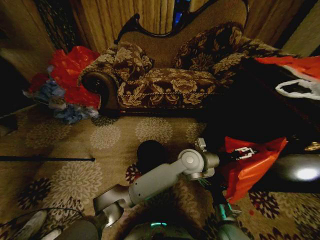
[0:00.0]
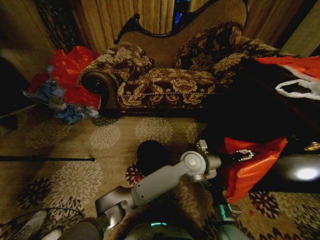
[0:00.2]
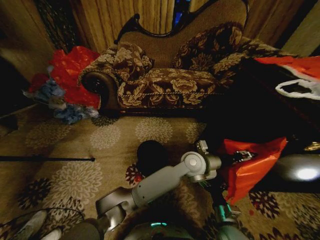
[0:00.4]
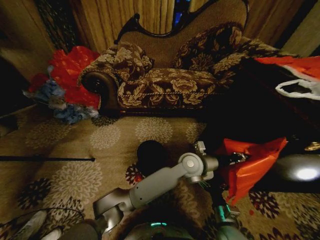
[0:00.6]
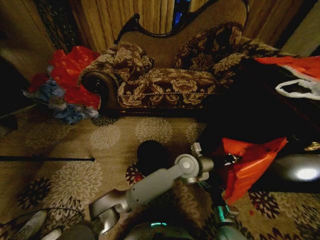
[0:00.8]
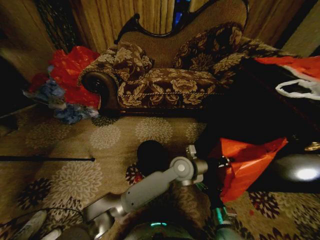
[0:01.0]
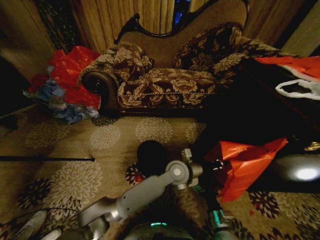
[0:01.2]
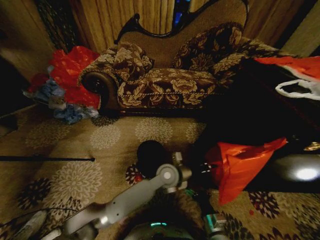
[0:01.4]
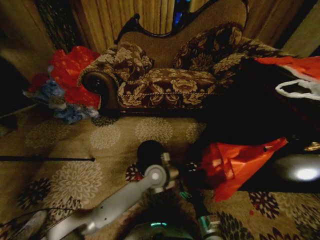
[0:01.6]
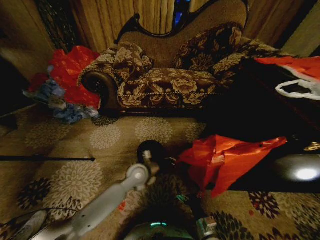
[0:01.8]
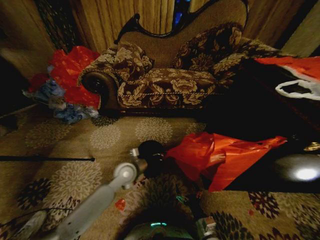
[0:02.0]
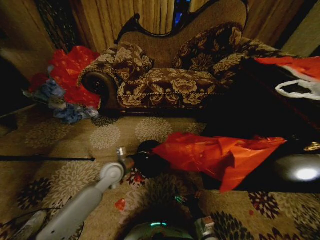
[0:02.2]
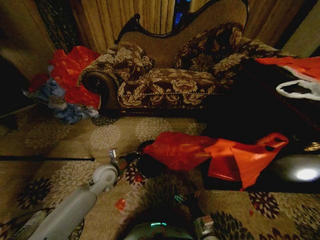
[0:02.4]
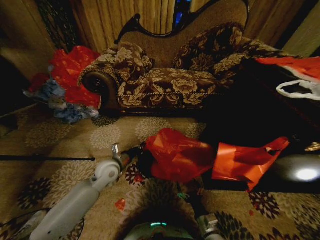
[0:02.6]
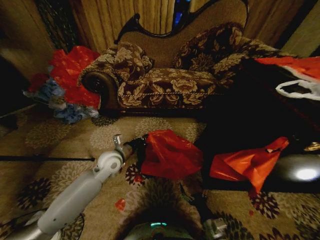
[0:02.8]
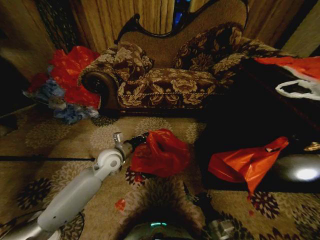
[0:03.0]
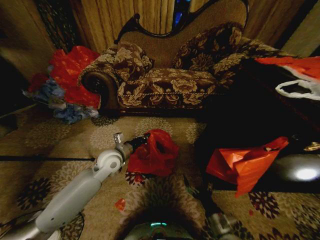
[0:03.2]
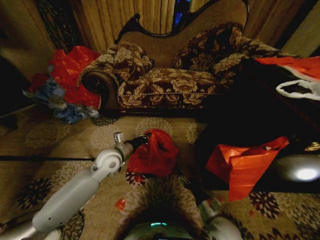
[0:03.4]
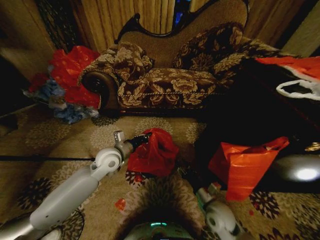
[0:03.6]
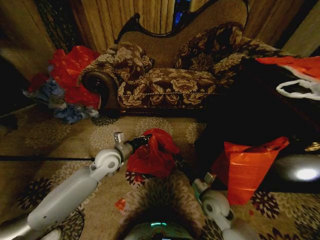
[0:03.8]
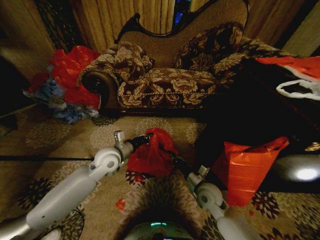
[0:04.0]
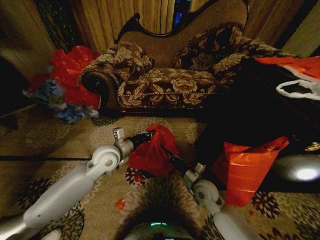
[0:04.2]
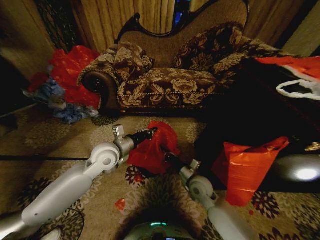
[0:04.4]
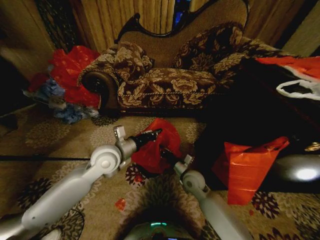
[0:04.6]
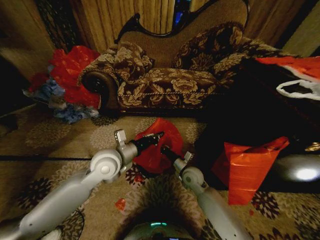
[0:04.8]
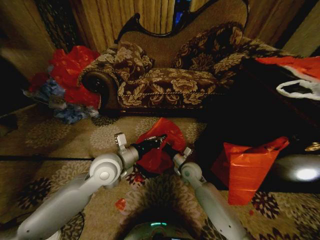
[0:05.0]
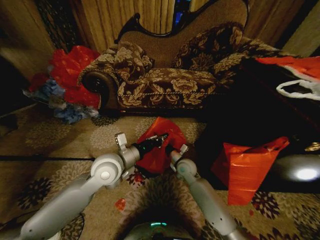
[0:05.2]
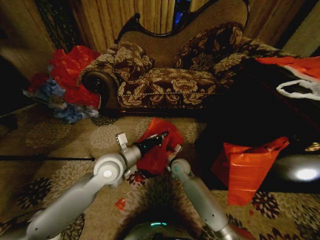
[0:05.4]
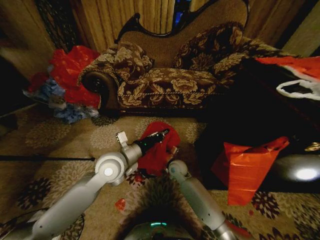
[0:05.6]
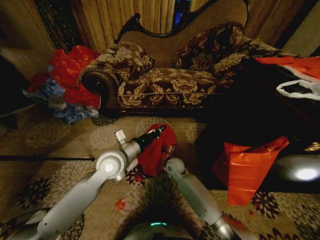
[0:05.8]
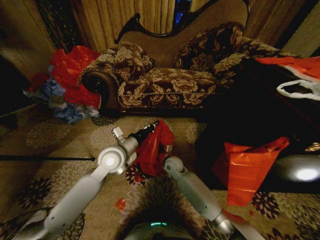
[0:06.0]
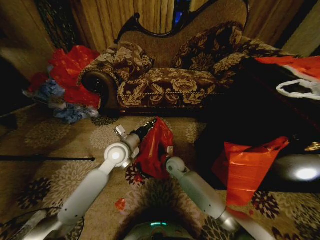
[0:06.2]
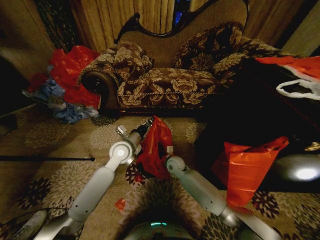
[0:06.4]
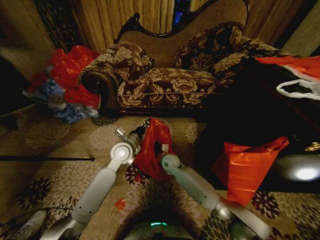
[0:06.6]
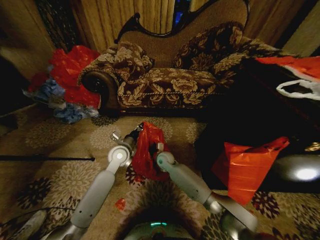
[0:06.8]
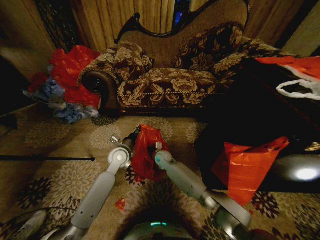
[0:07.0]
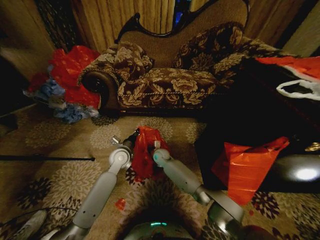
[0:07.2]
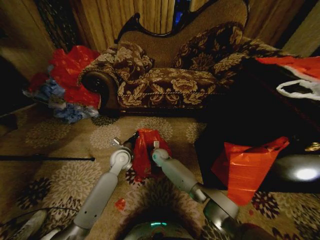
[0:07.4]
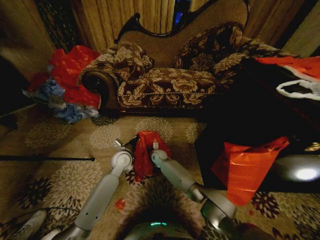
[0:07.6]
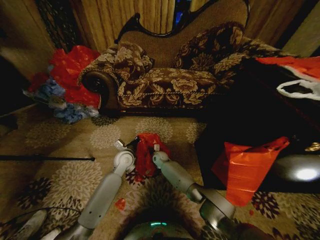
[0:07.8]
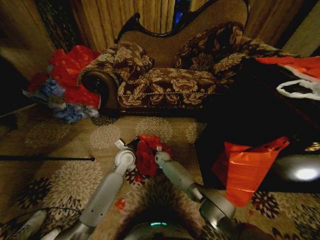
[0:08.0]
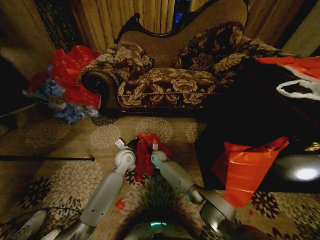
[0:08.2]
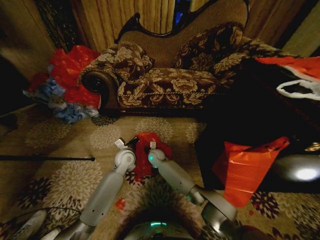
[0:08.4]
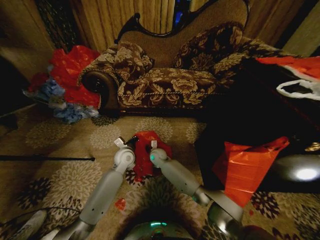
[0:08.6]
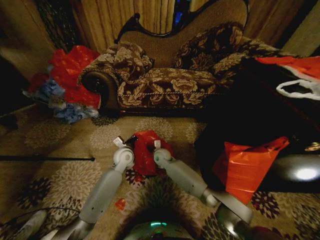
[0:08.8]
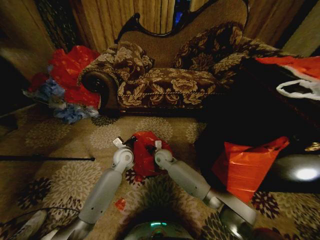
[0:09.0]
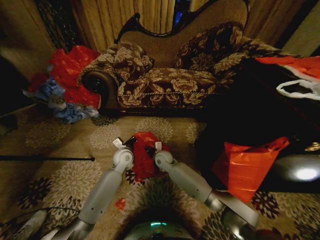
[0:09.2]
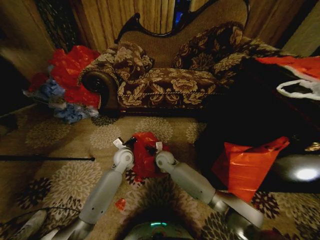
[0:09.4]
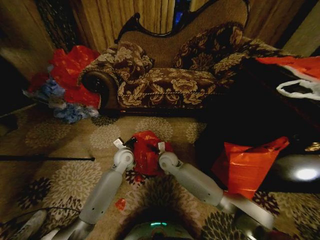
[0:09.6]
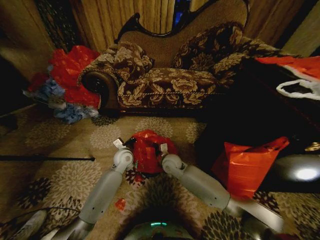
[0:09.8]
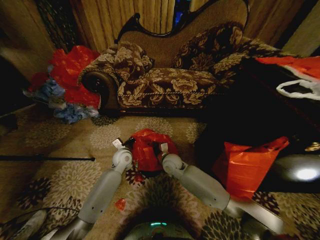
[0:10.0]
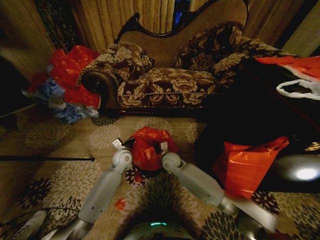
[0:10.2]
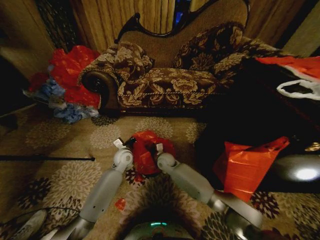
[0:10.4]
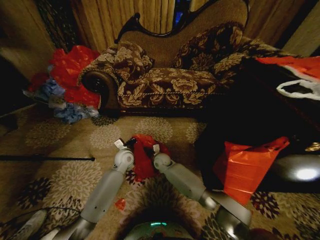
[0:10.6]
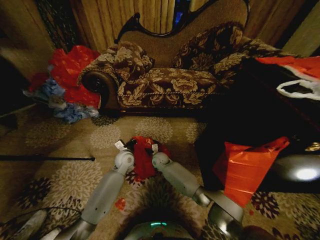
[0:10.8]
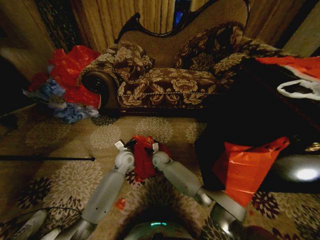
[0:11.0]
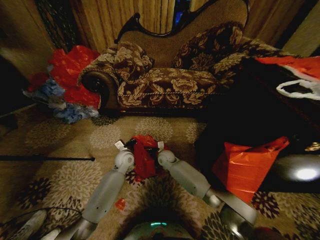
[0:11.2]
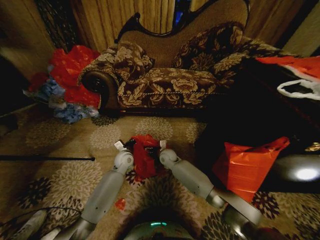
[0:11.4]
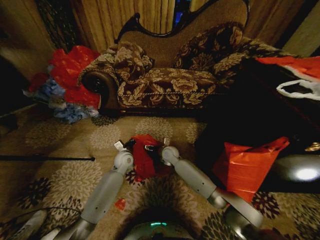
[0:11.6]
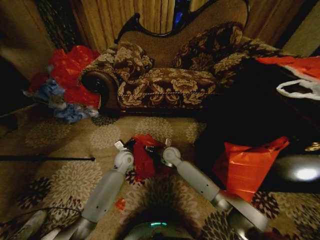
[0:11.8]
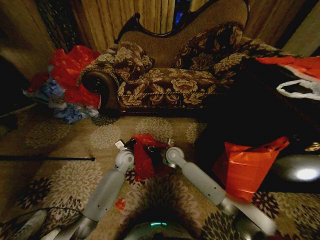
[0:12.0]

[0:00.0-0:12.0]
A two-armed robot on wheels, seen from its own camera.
Task of the whole recording: Place a garbage bag over the trash bin.
0.0 to 1.6 s: The left gripper moves to the left and downward, roughly 15 cm, and closes. Meanwhile the right gripper ends up some 5 cm from where it was.
1.6 to 3.0 s: The left gripper heads to the left, covering about 20 cm.
3.0 to 4.4 s: The left gripper shifts some 5 cm upward. Meanwhile the right gripper heads forward, covering approximately 20 cm, and closes its fingers.
4.4 to 6.0 s: The right gripper is displaced forward and to the left by approximately 15 cm.
6.0 to 7.6 s: The right gripper goes roughly 15 cm forward, to the left and downward. Meanwhile the left gripper goes approximately 10 cm downward and forward.
7.6 to 9.0 s: The right gripper goes approximately 5 cm upward, and opens.
10.4 to 12.0 s: The right gripper goes approximately 5 cm upward, and closes.

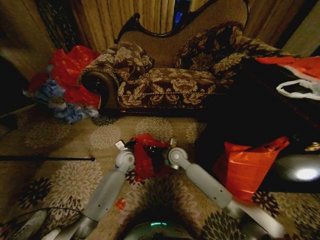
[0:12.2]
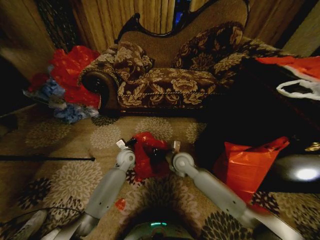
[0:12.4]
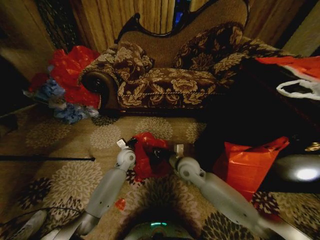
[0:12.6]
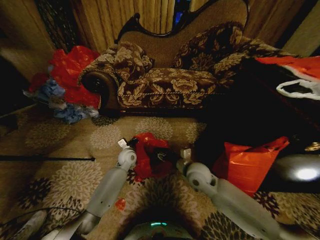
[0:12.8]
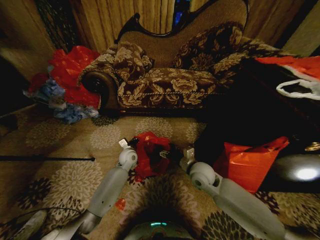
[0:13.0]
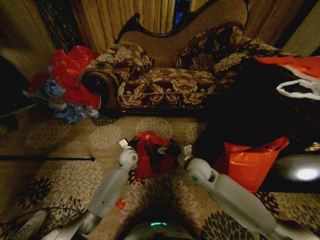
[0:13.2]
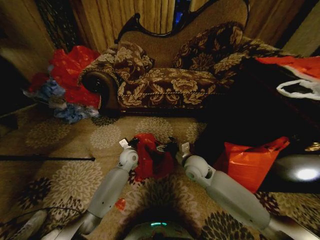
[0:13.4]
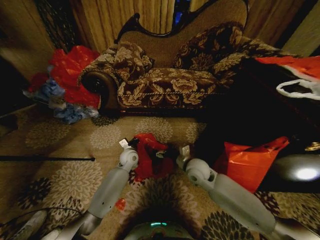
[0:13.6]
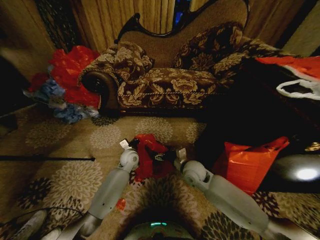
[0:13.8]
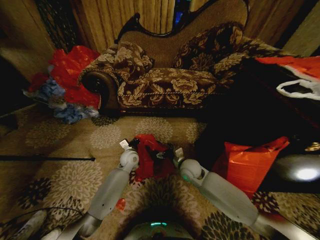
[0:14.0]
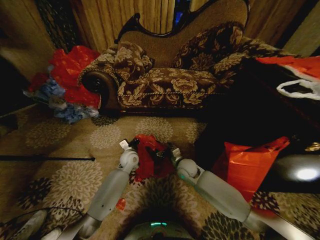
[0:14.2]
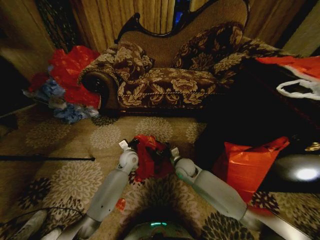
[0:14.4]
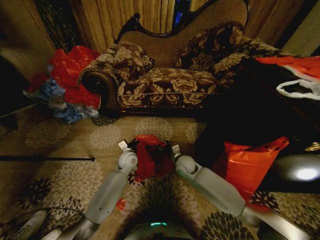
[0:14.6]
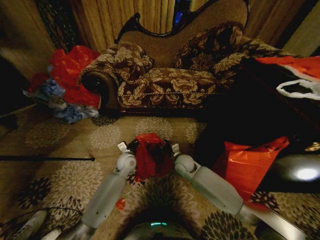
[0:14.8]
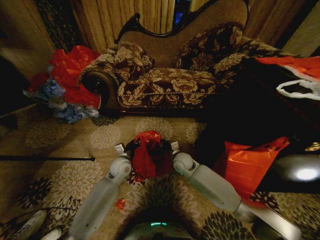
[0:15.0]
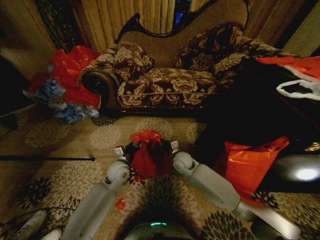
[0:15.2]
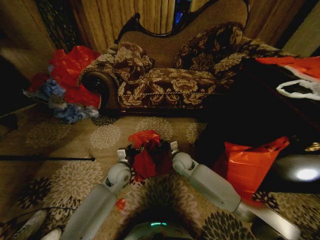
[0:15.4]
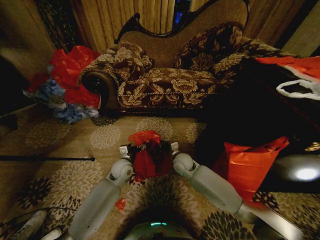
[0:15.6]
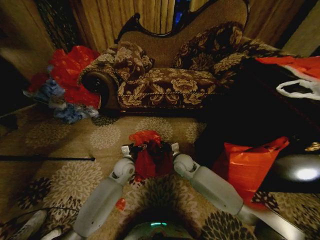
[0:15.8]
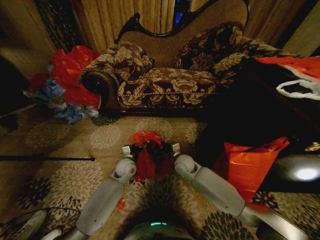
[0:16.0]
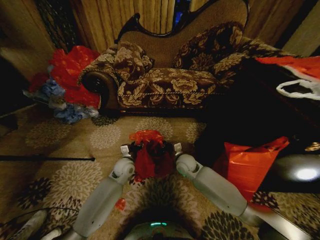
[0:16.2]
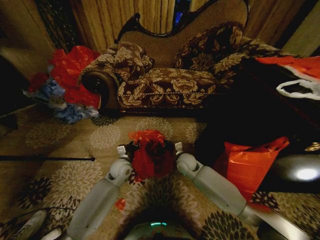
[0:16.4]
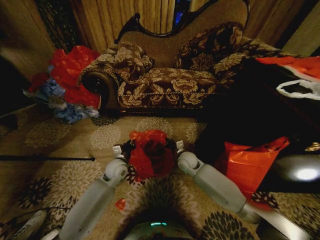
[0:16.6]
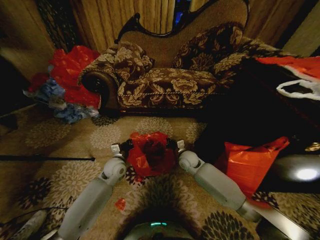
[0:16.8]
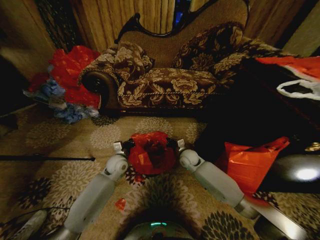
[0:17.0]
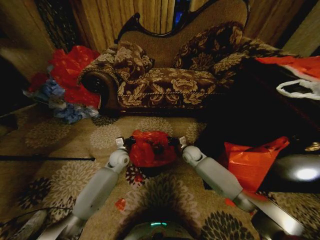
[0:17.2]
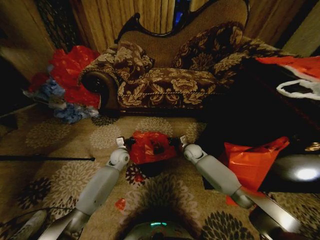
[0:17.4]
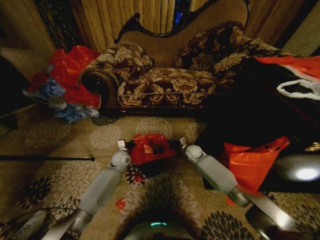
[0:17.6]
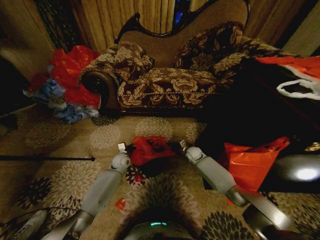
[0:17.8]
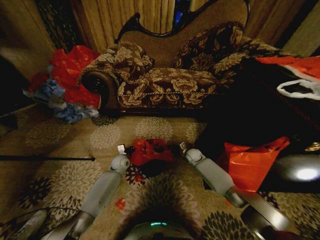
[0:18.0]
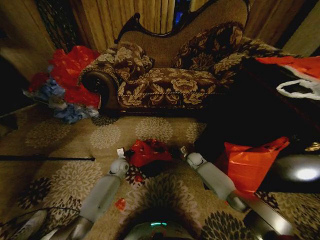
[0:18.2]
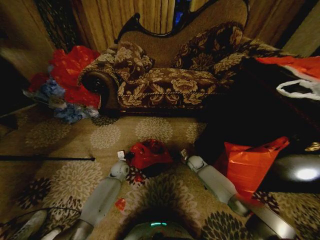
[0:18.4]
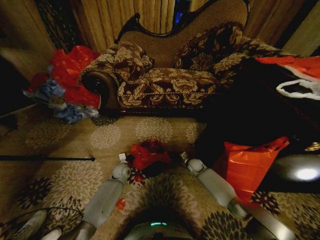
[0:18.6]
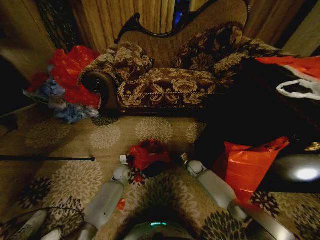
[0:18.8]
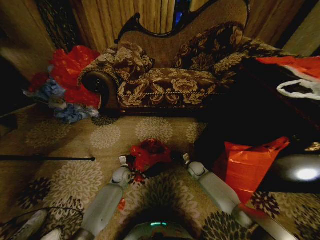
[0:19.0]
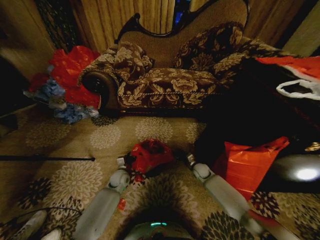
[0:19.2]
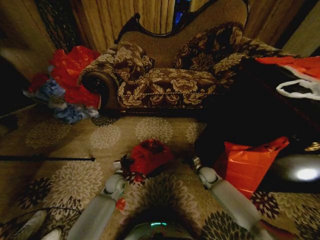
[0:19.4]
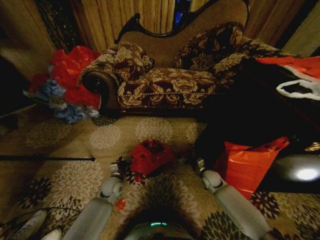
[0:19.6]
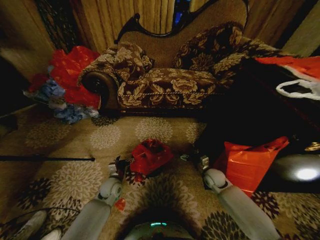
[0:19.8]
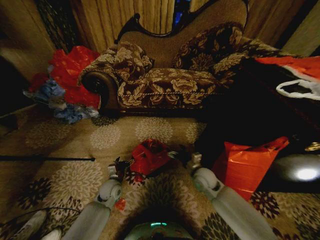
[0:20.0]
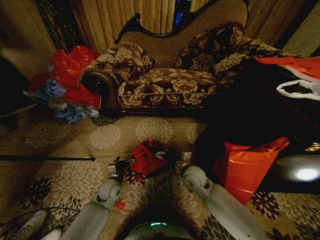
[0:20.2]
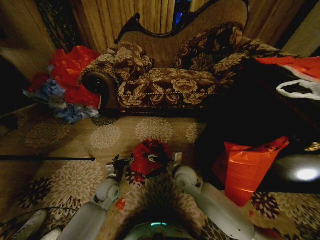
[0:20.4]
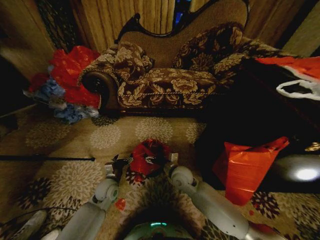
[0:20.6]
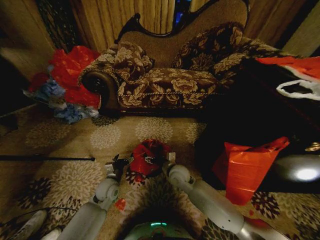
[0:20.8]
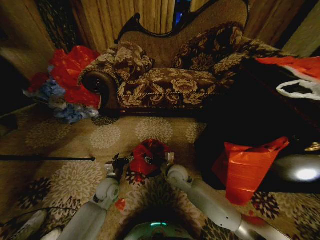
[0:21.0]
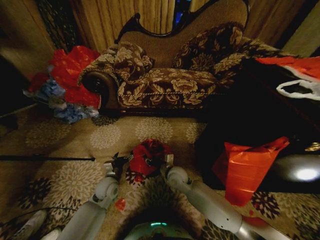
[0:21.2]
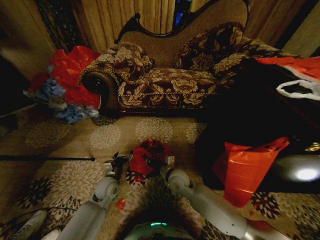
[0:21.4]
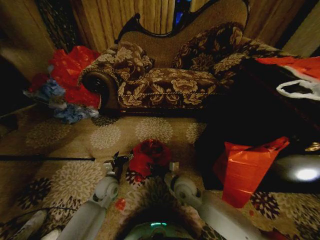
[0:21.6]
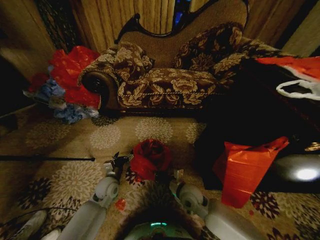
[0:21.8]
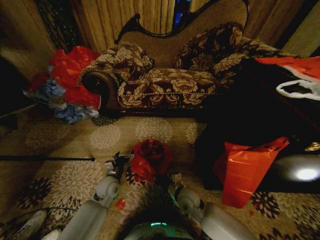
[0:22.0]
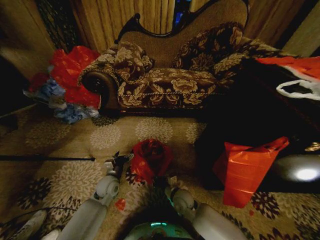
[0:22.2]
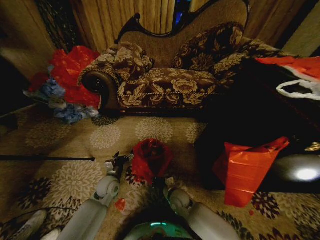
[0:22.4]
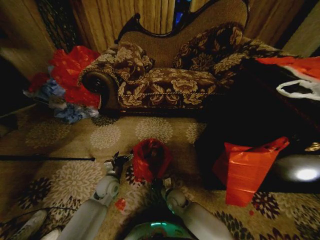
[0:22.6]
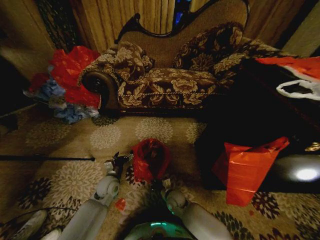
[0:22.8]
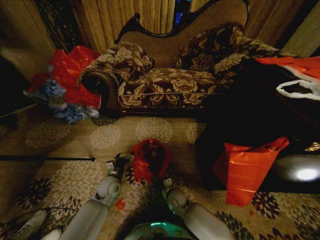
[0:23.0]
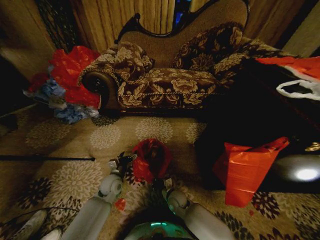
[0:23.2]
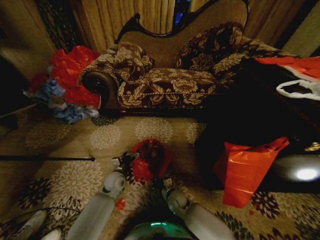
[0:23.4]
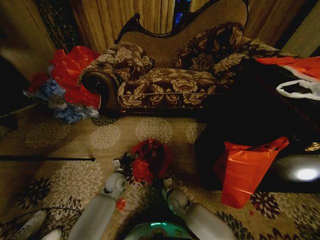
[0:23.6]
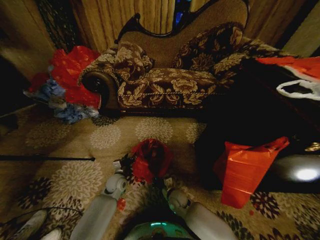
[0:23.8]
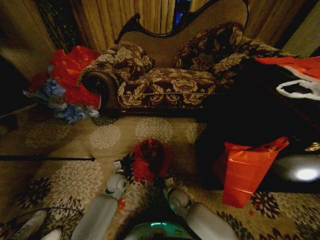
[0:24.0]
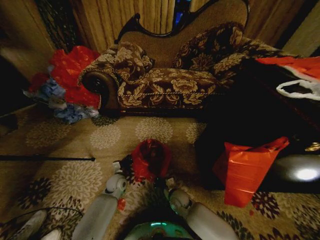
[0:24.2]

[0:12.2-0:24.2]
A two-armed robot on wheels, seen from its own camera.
Task of the whole recording: Place a garbage bag over the trash bin.
12.2 to 13.8 s: The right gripper is displaced backward and to the right by approximately 10 cm, and opens up.
13.8 to 15.2 s: The right gripper heads forward, covering about 5 cm, and closes its fingers, while the left gripper is displaced backward by roughly 10 cm, and opens its fingers.
15.2 to 16.6 s: The left gripper opens and closes again.
16.6 to 18.2 s: The right gripper is displaced downward, to the right and forward by about 15 cm. The left gripper is displaced downward and forward by some 15 cm.
18.2 to 19.8 s: The right gripper goes roughly 15 cm backward and to the right, and opens; the left gripper moves backward, approximately 10 cm, and opens up.
19.8 to 21.2 s: The right gripper heads to the left, covering roughly 20 cm, and closes.
21.2 to 22.6 s: The right gripper heads downward, covering roughly 15 cm, and closes.
22.6 to 24.2 s: The left gripper travels downward by roughly 5 cm, and closes.
